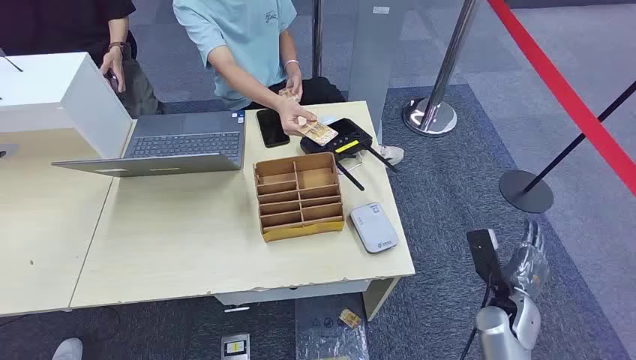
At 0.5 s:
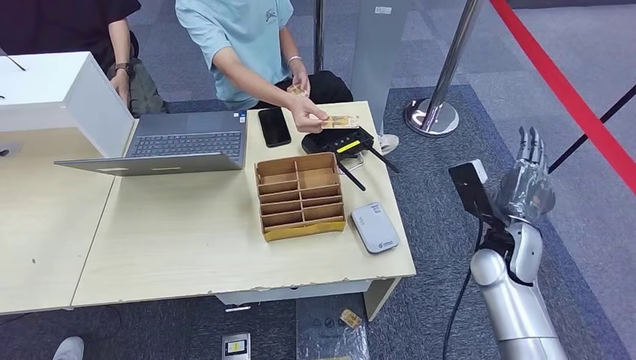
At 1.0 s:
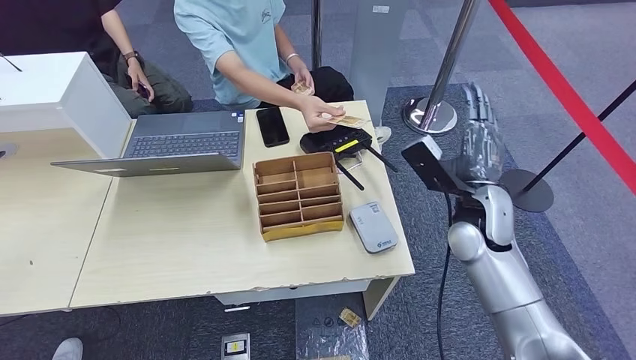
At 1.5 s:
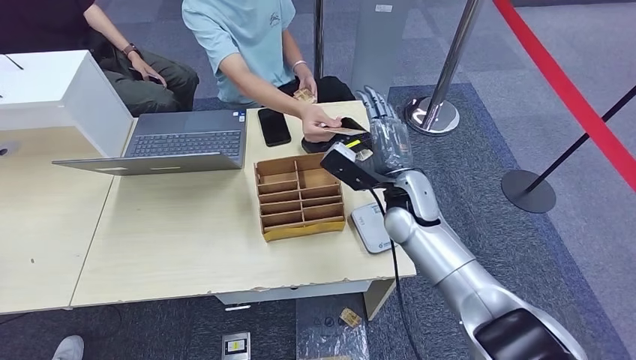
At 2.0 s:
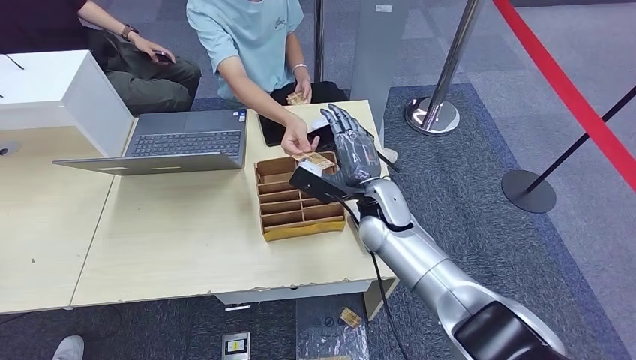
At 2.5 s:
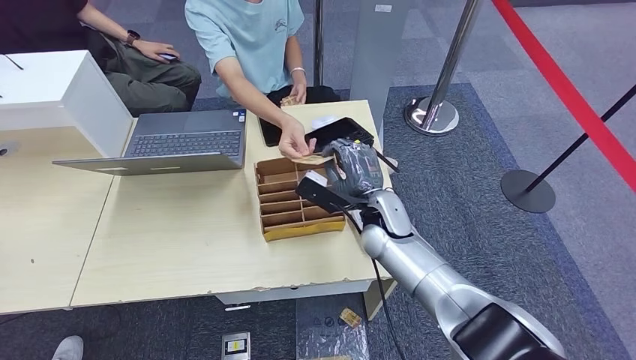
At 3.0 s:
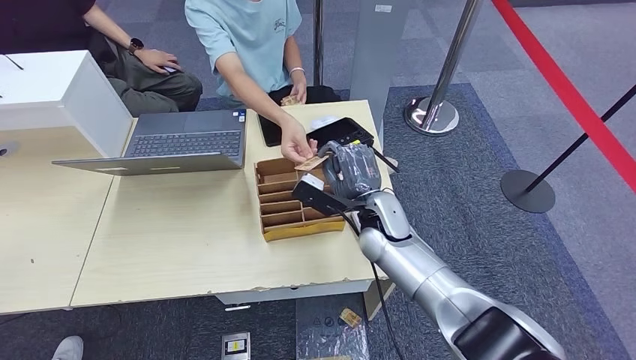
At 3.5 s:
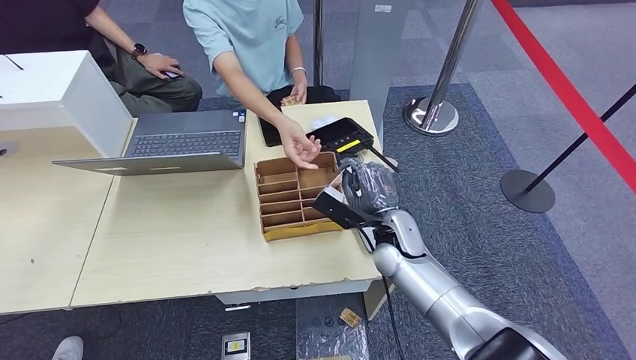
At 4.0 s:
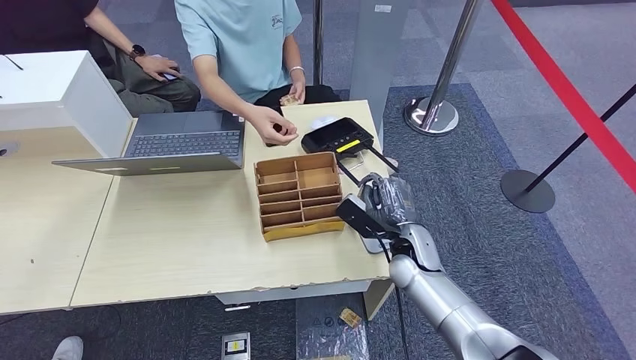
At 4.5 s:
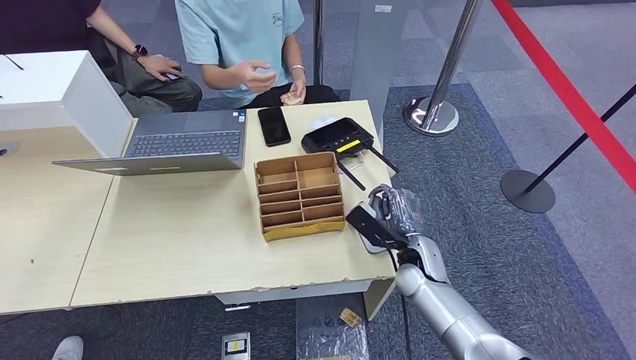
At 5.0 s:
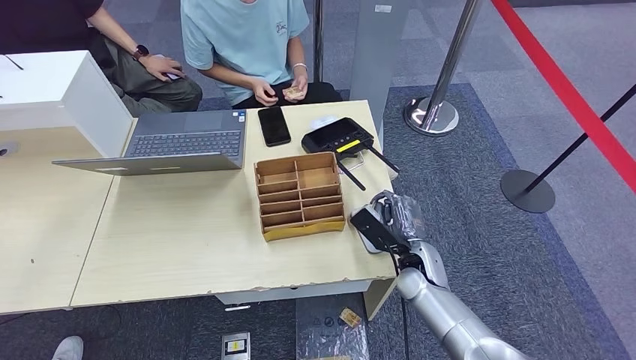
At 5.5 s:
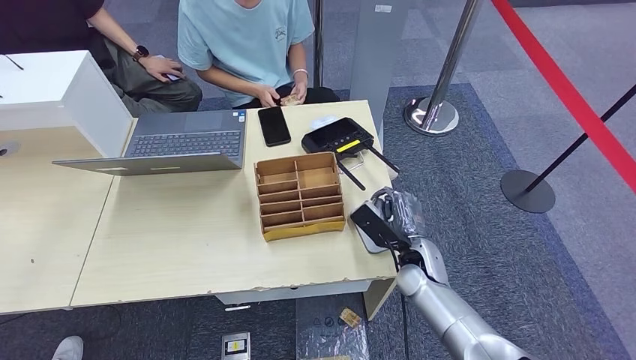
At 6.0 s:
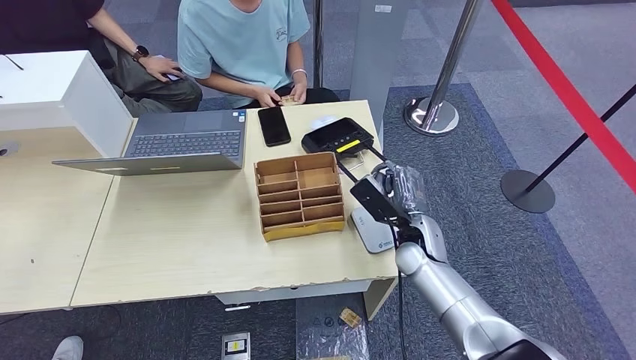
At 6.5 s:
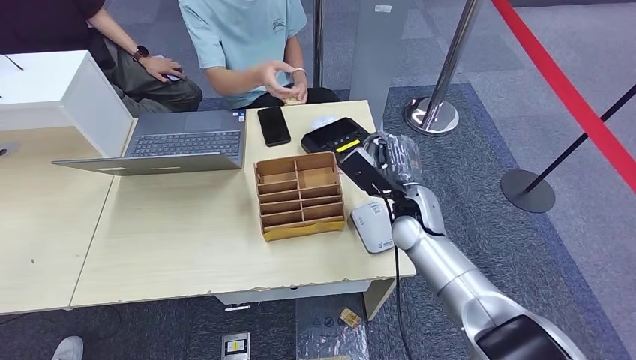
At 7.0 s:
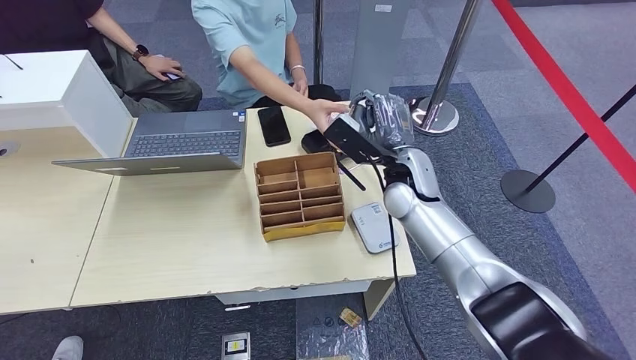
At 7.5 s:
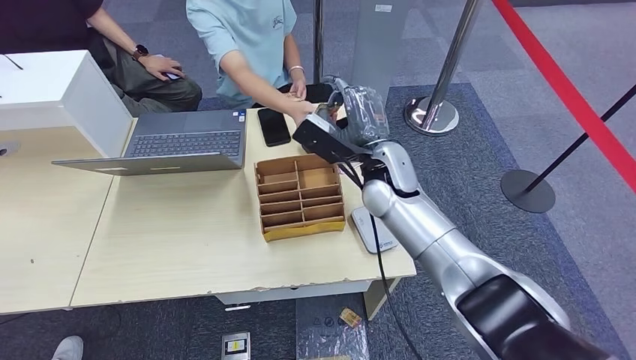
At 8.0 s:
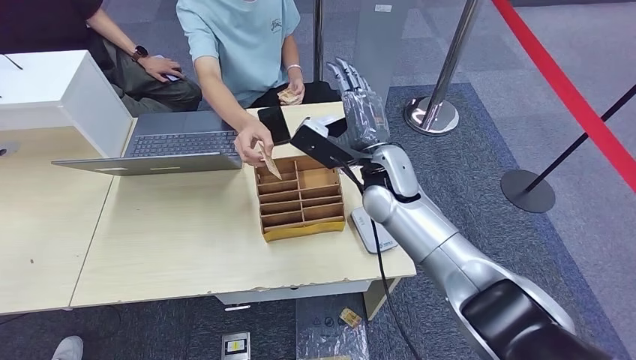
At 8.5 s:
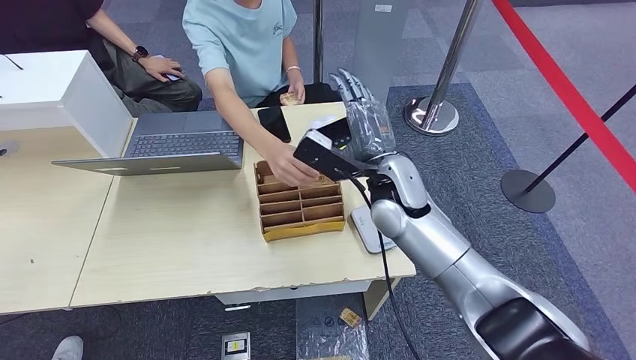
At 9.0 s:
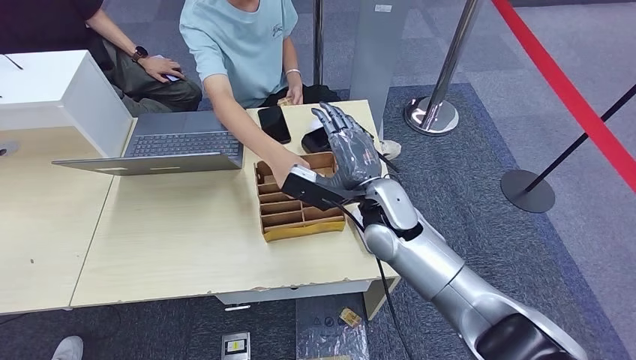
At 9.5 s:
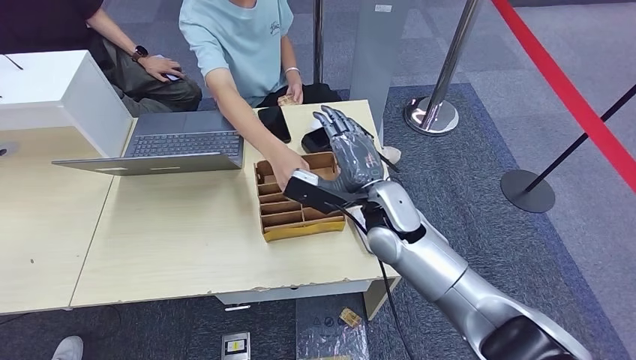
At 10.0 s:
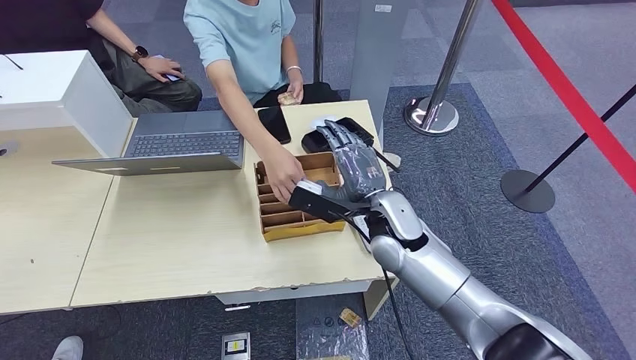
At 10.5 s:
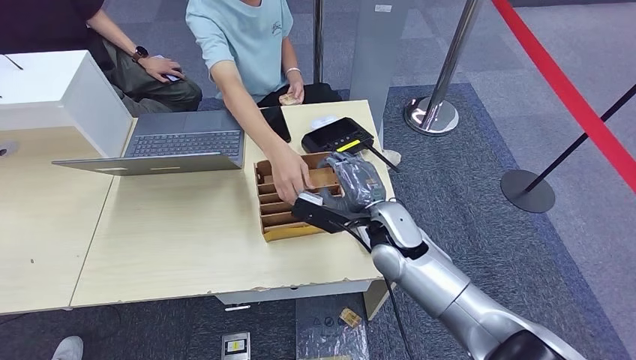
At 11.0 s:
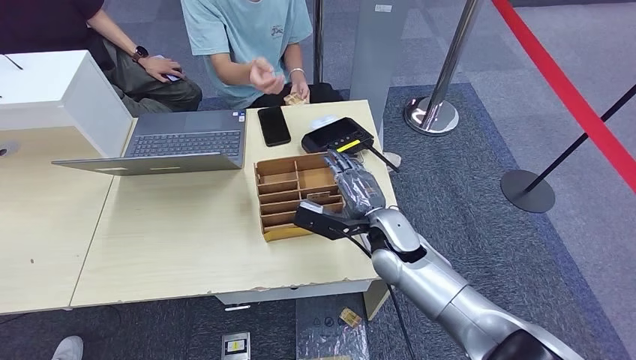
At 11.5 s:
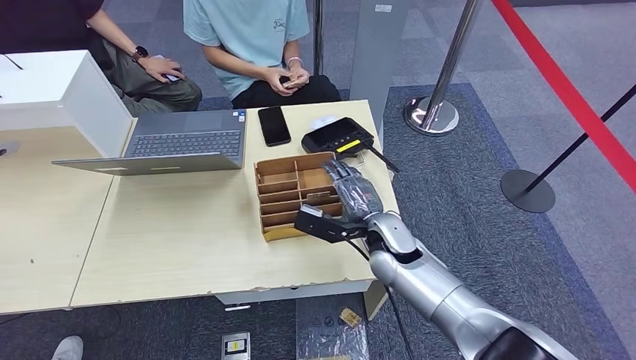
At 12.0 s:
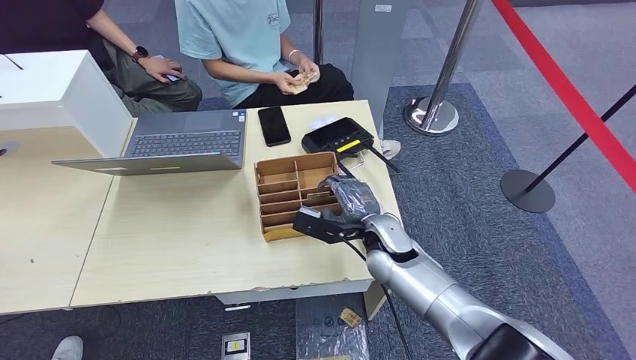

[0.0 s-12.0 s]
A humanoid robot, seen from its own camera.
Step, 0.0 to 3.0 s: Take the ID card from the person's hand.
Step, 3.5 to 5.0 s: Place the ID card on the card reader.
Step, 5.5 to 9.0 s: Hand the ID card to the person.
2.0 to 4.0 s: The right hand moves downward and to the right, roughly 10 cm.
4.0 to 6.0 s: There are only small adjustments of the hands.
6.0 to 8.0 s: The right hand moves upward and to the left, some 15 cm.
8.0 to 10.0 s: The right hand travels backward and downward by approximately 10 cm.
10.0 to 12.0 s: The right hand travels downward by some 5 cm.

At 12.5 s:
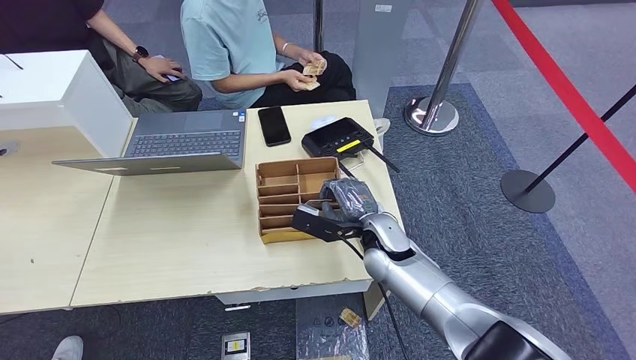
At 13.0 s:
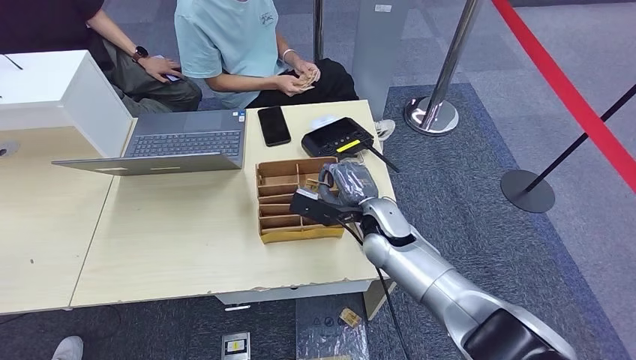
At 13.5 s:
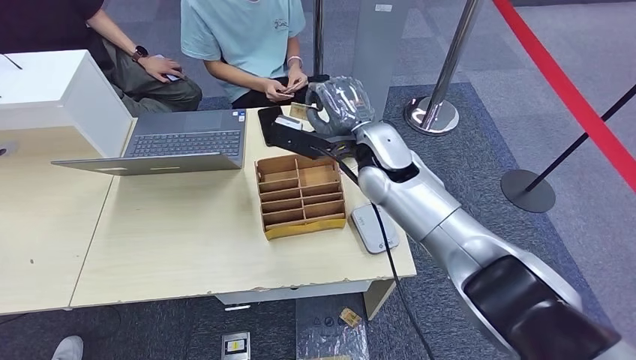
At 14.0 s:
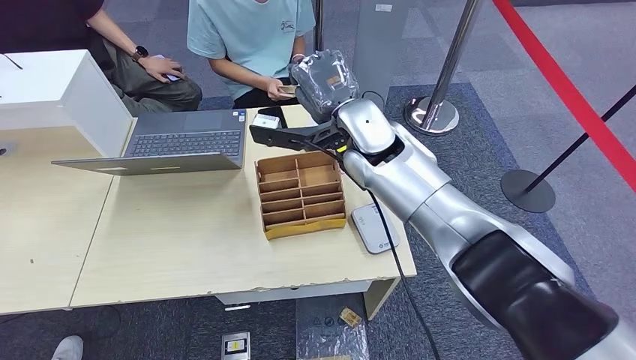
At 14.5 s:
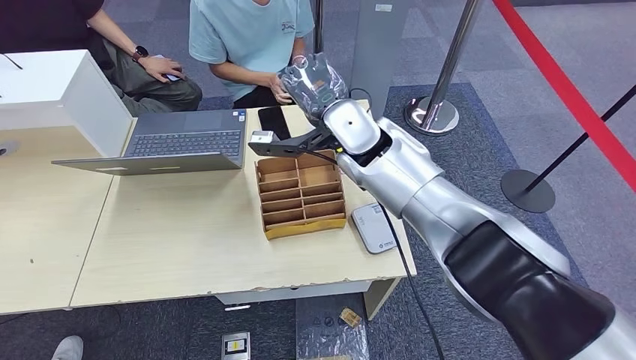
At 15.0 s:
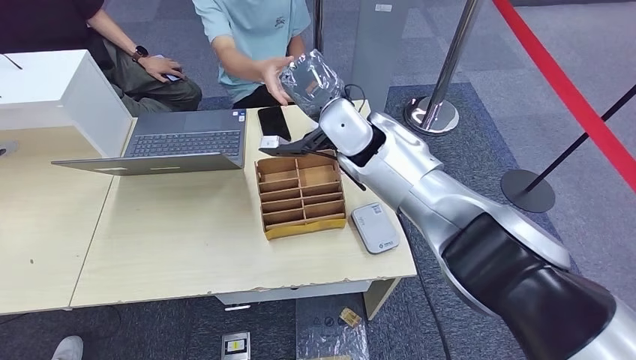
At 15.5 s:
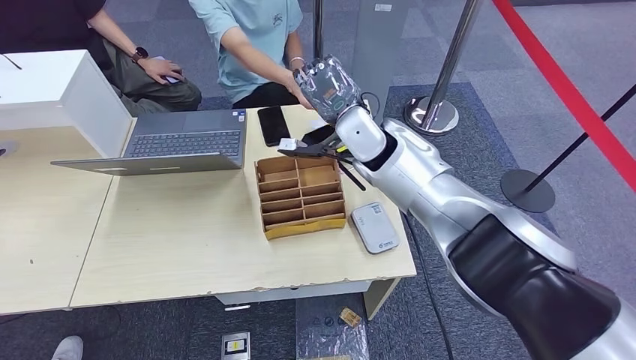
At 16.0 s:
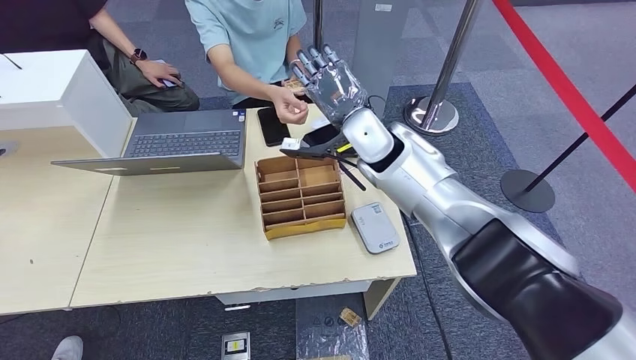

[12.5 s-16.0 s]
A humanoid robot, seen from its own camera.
Step, 14.0 to 16.0 s: Hand the room key to the person.
14.5 to 16.0 s: The hands make only small movements.
